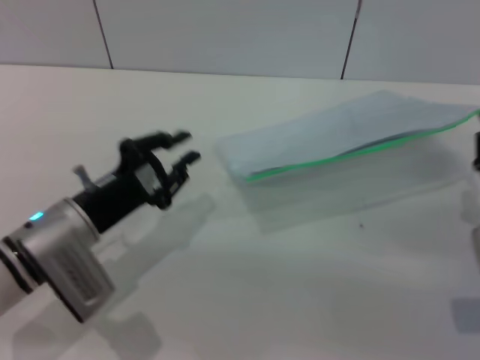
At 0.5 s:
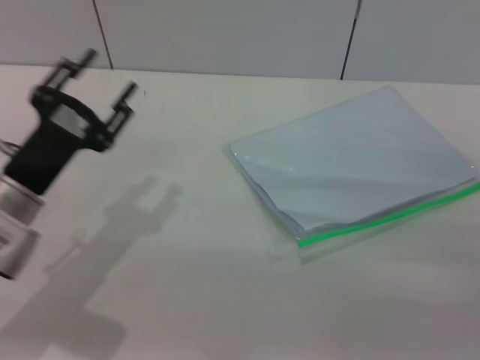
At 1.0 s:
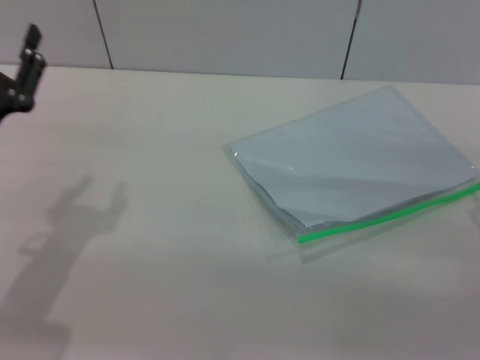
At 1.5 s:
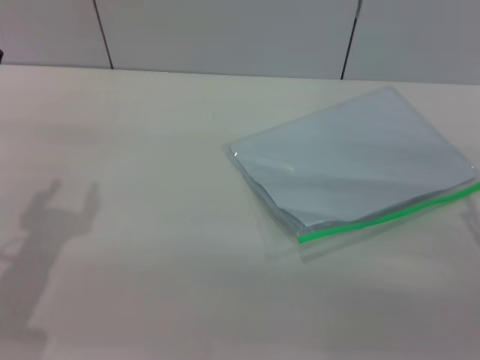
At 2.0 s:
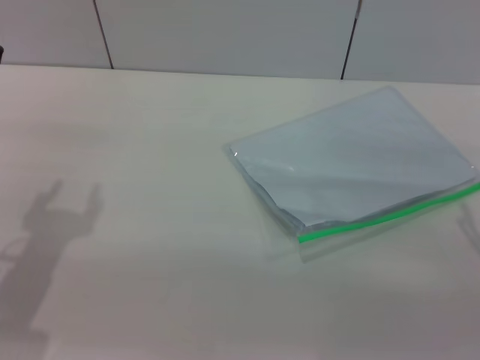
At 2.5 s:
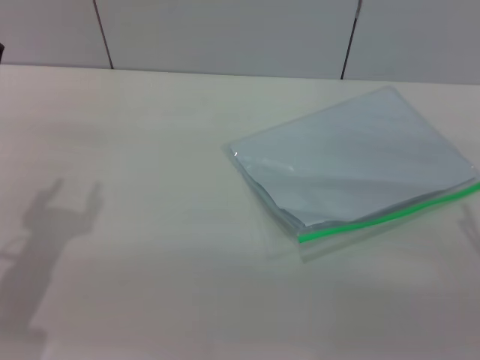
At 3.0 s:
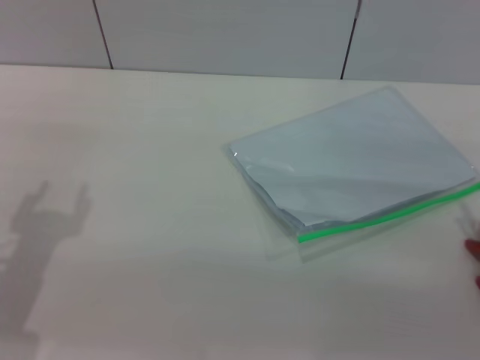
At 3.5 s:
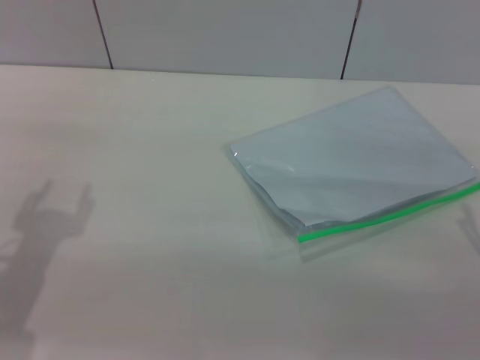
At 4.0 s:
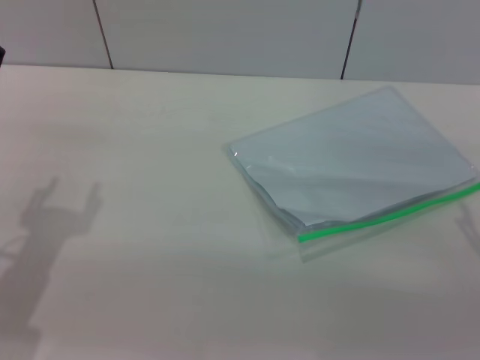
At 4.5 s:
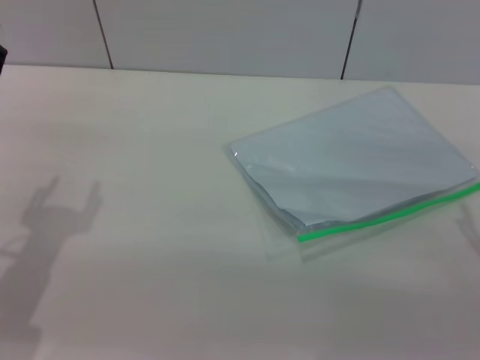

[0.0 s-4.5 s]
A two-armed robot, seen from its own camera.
Step, 0.5 to 2.0 s: Place the transparent plastic bag.
0.0 to 2.0 s: The left gripper shifts roughly 10 cm to the left, and opens up. The right gripper opens its fingers.
